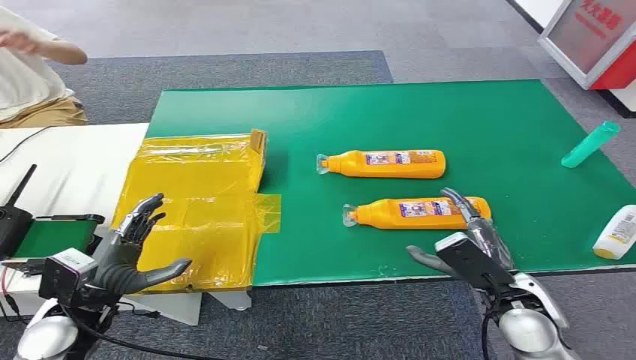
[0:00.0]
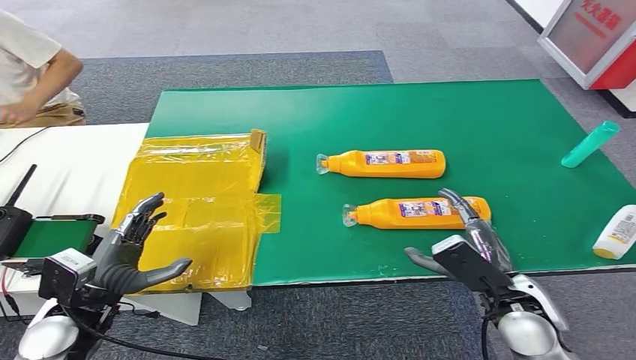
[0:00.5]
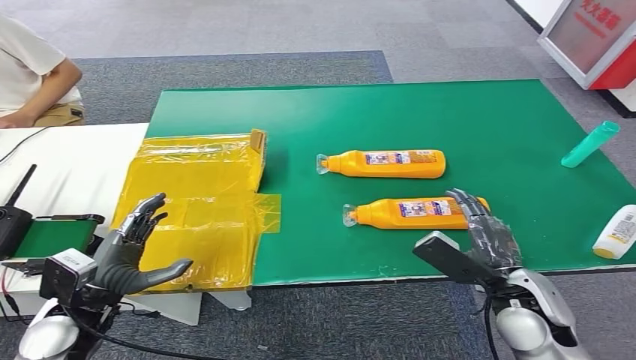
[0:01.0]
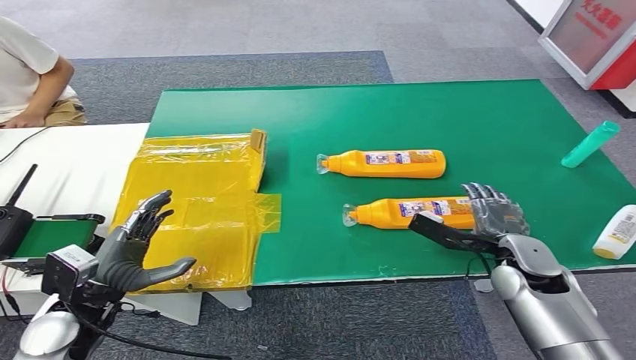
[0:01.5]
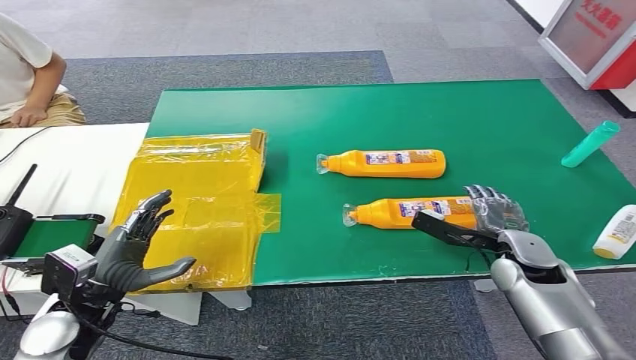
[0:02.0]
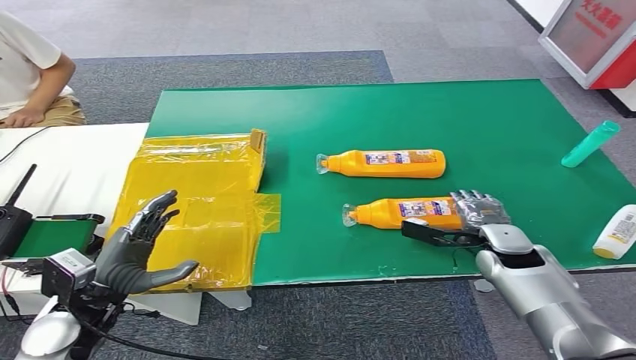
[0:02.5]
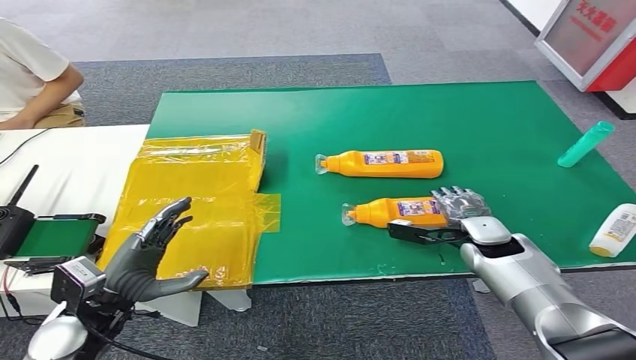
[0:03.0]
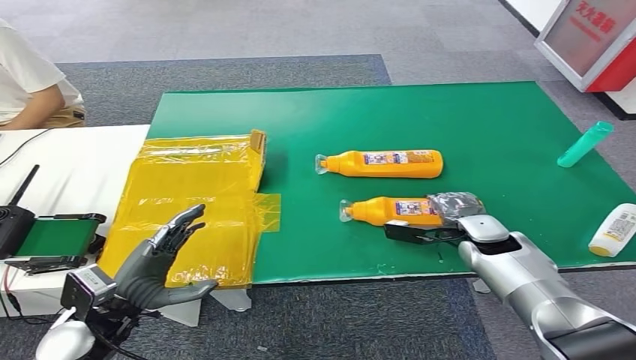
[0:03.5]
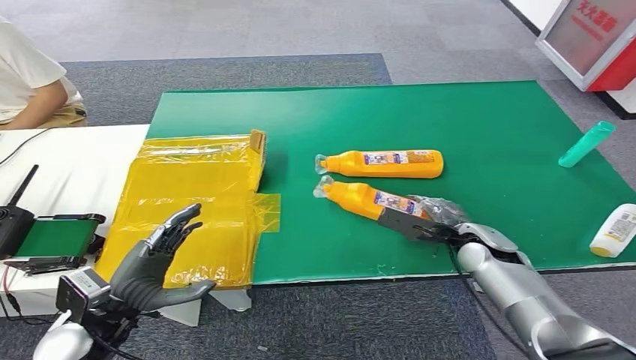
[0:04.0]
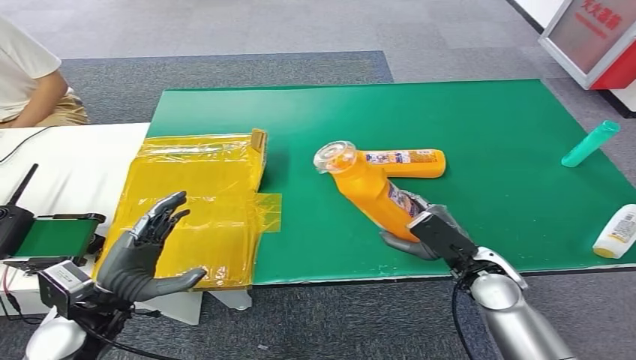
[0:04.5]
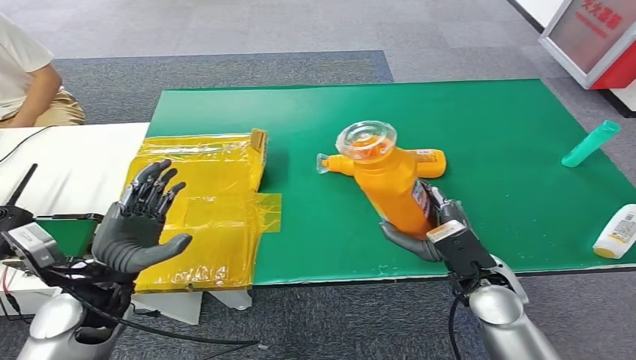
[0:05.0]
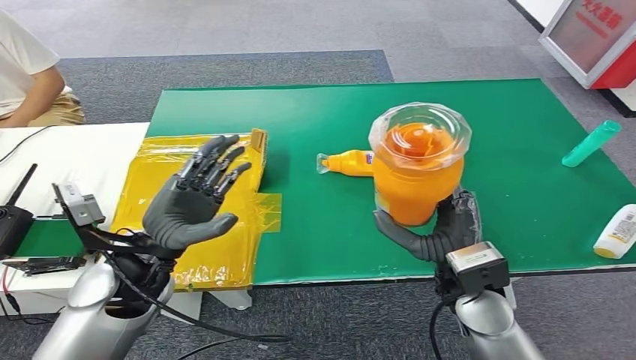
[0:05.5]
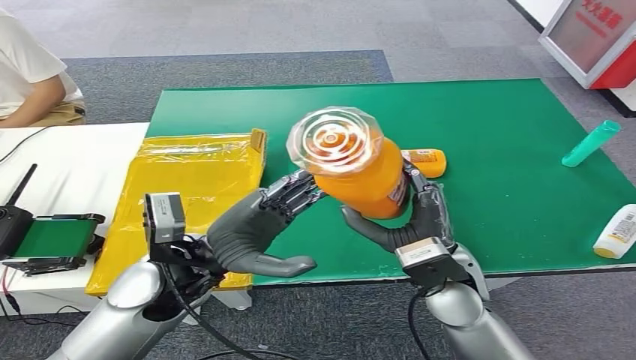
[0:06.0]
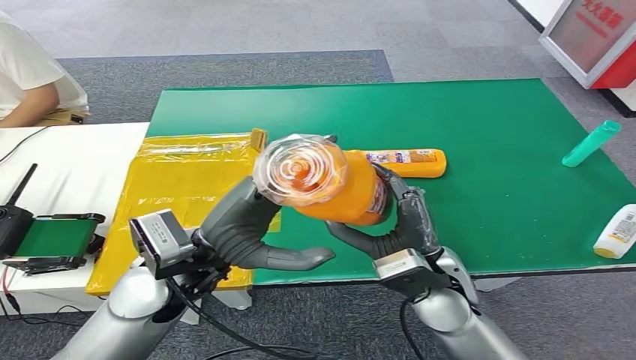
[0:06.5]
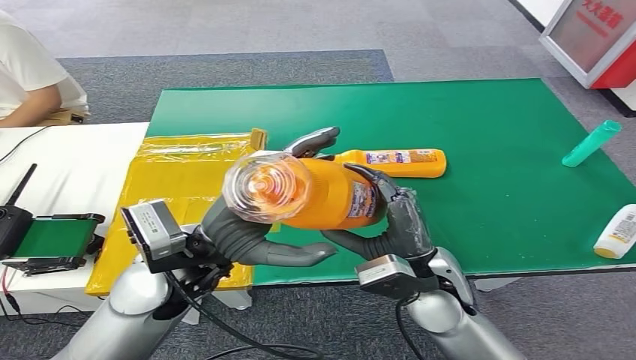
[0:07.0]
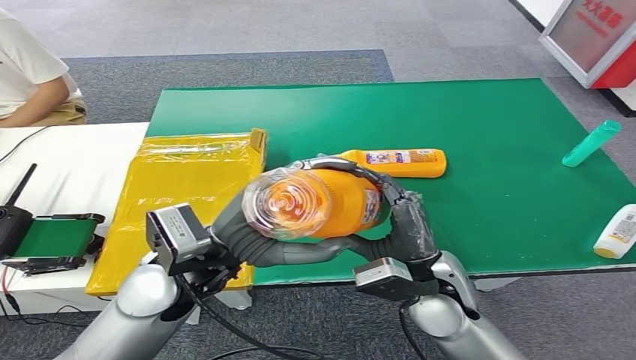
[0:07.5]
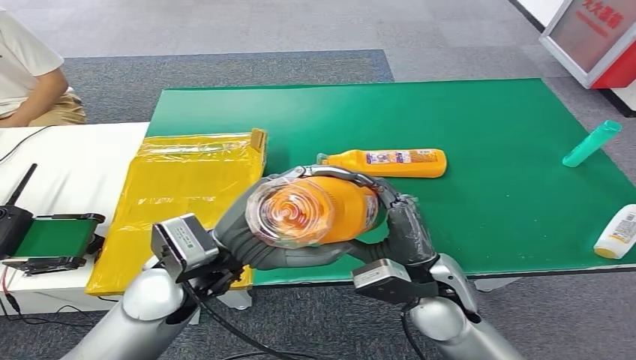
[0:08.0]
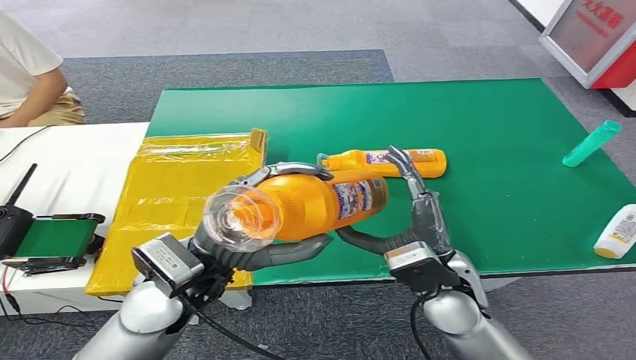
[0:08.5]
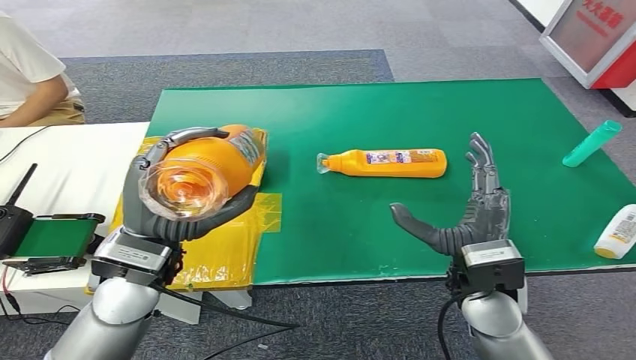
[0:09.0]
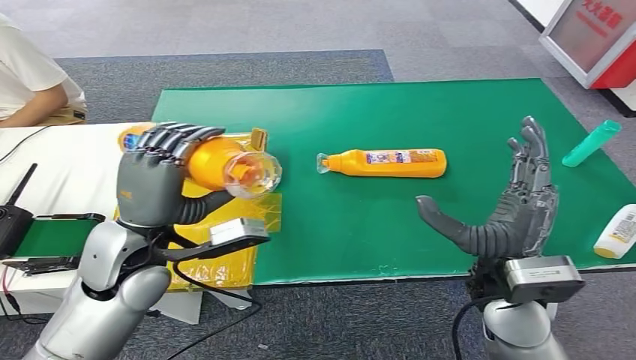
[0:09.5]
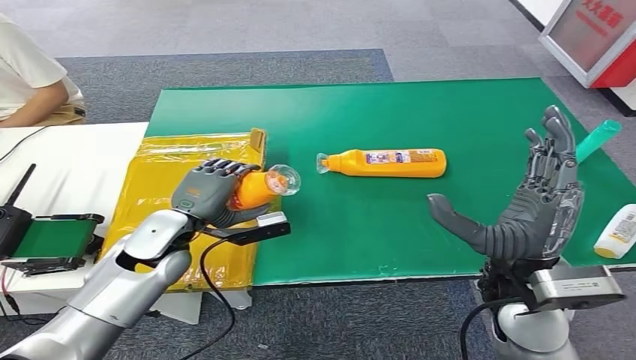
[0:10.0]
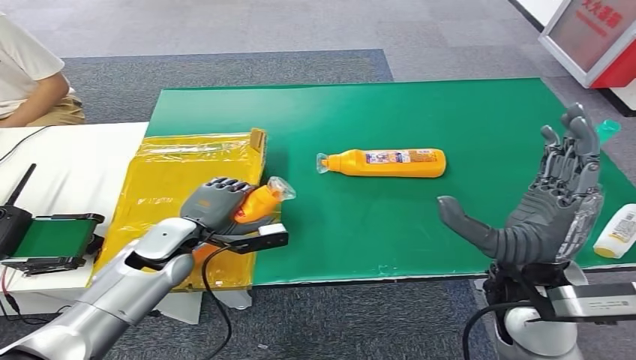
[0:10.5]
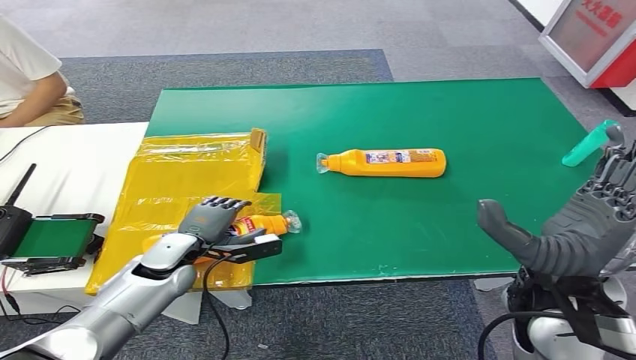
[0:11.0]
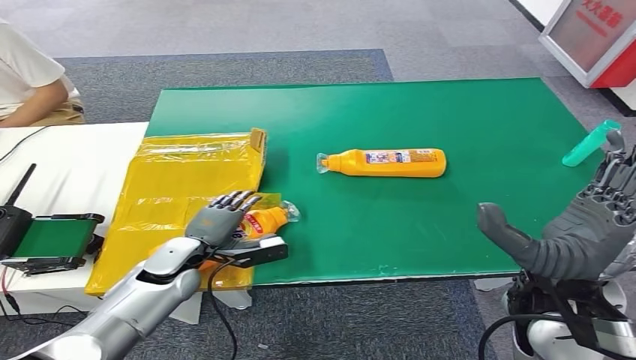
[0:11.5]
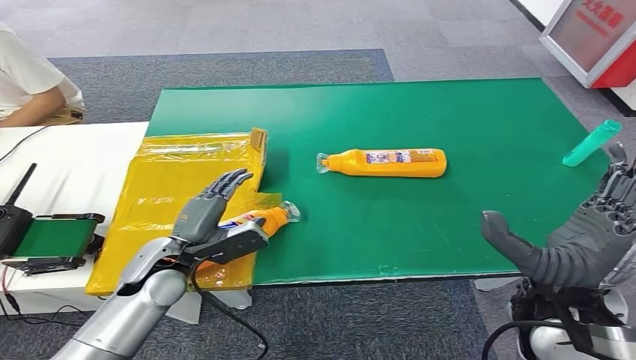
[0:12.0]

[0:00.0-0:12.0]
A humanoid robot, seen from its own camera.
Step, 0:00.0 to 0:05.0: Pick up the bottle from the table.
Step, 0:05.5 to 0:12.0: Turn the bottle to the front side.
